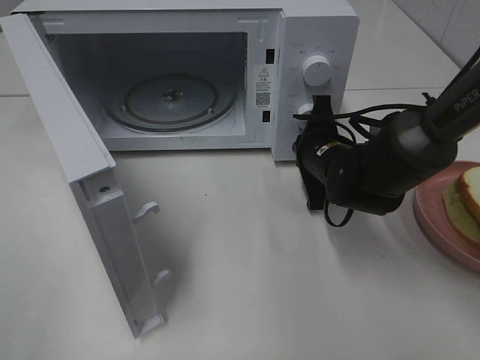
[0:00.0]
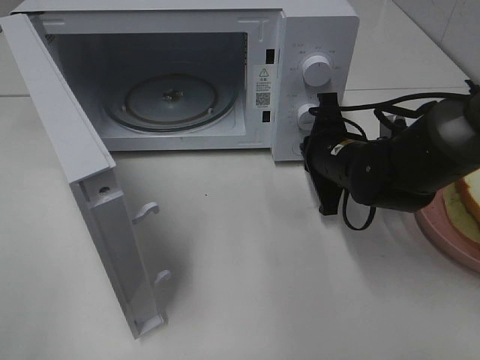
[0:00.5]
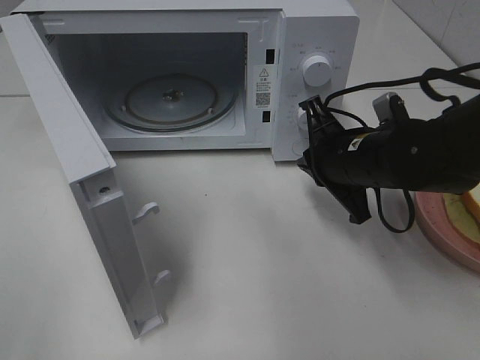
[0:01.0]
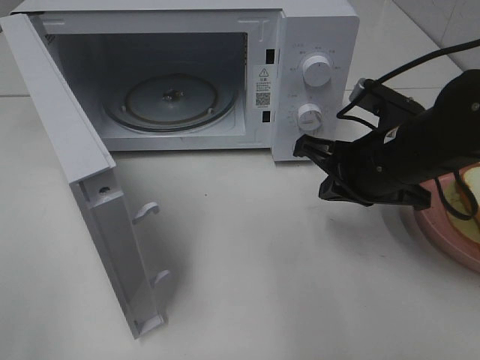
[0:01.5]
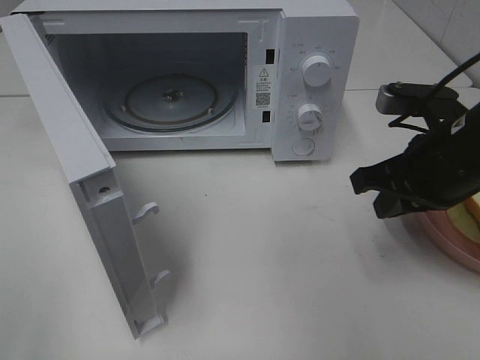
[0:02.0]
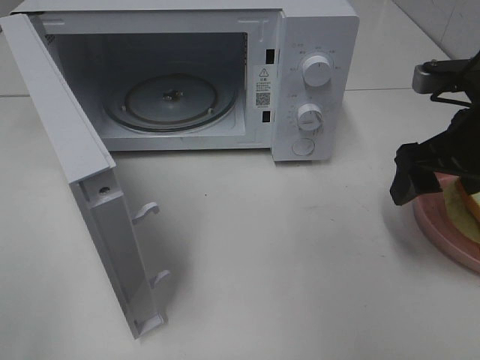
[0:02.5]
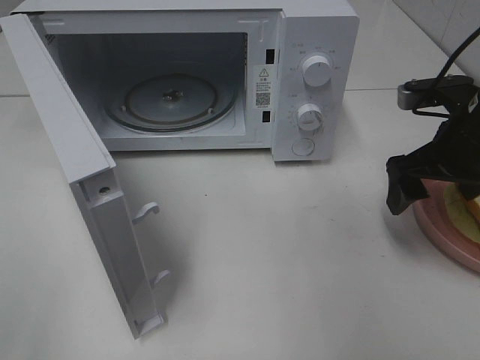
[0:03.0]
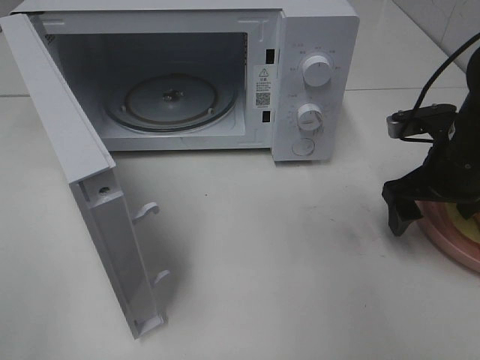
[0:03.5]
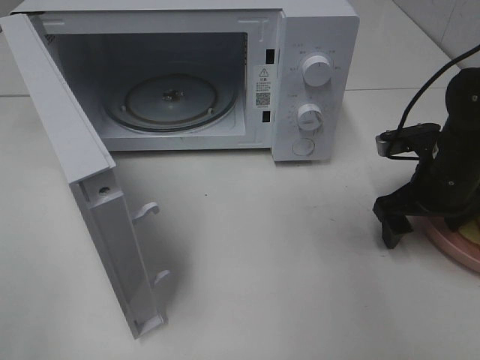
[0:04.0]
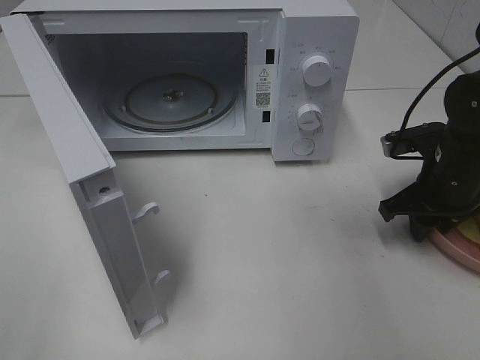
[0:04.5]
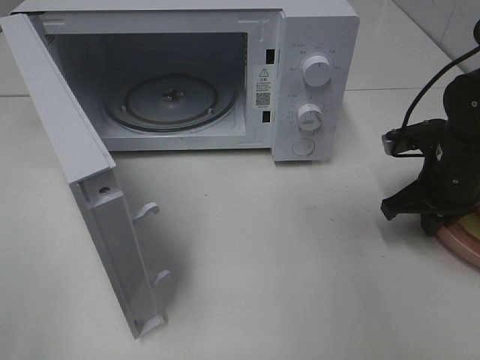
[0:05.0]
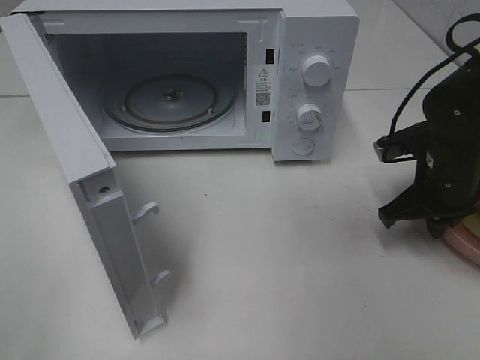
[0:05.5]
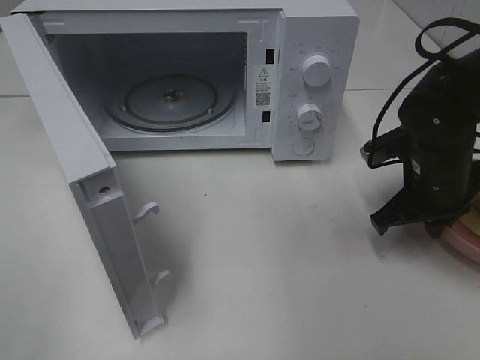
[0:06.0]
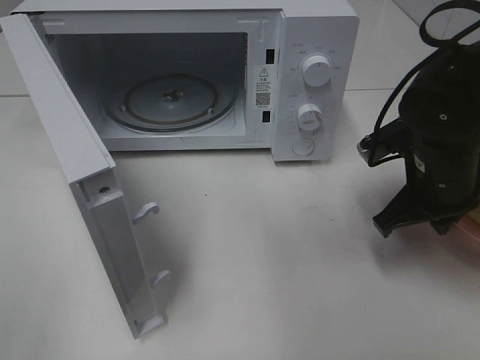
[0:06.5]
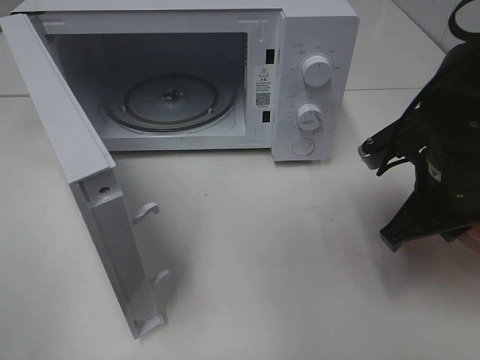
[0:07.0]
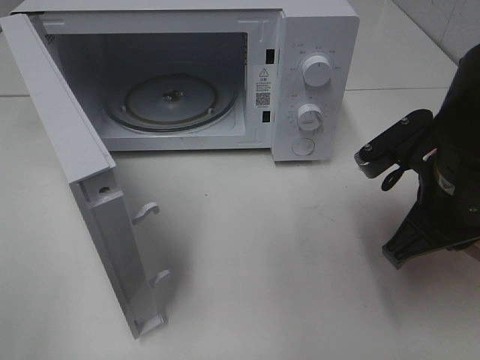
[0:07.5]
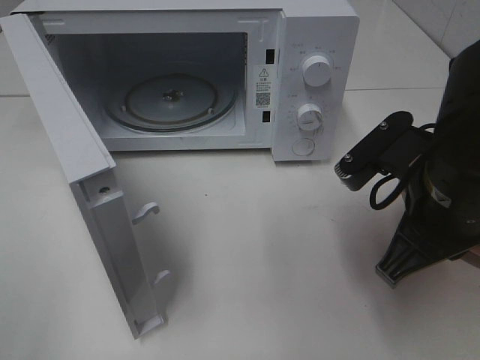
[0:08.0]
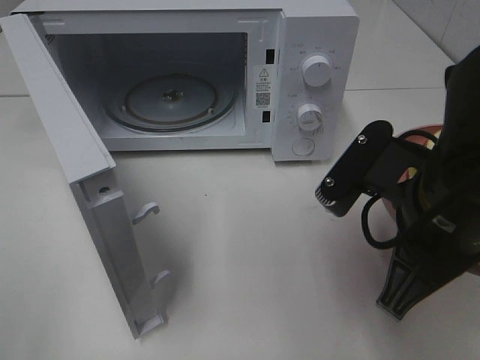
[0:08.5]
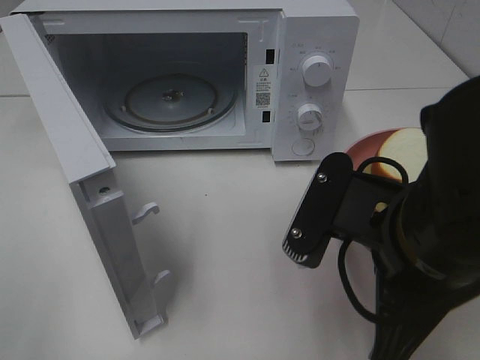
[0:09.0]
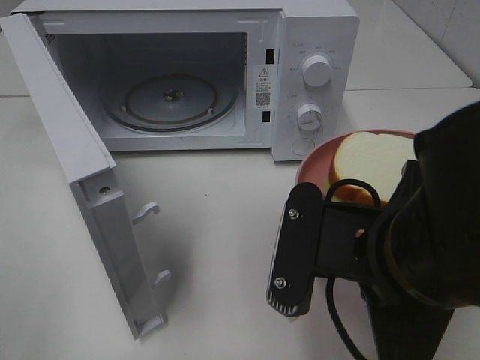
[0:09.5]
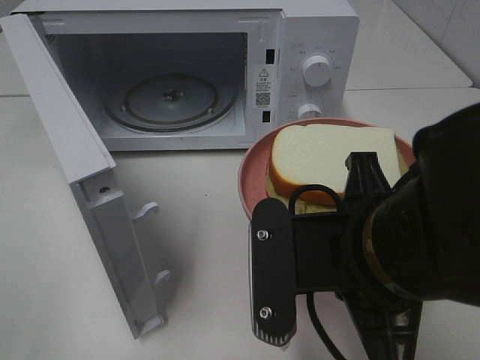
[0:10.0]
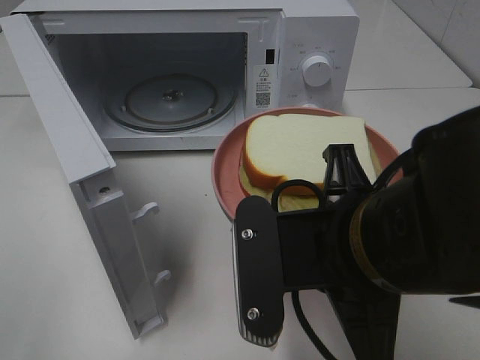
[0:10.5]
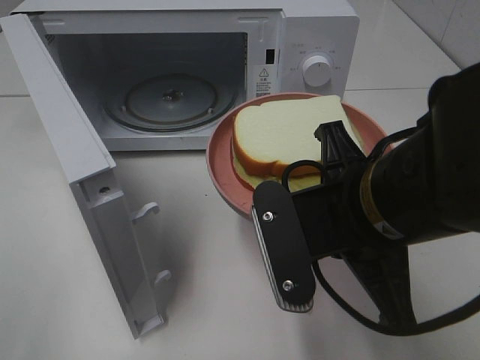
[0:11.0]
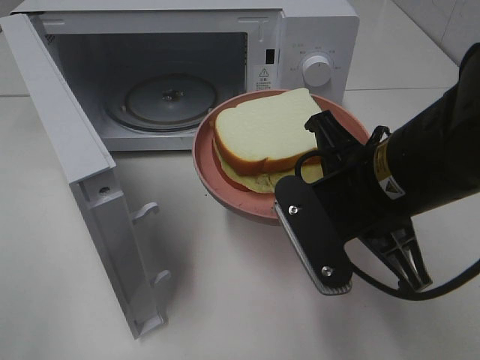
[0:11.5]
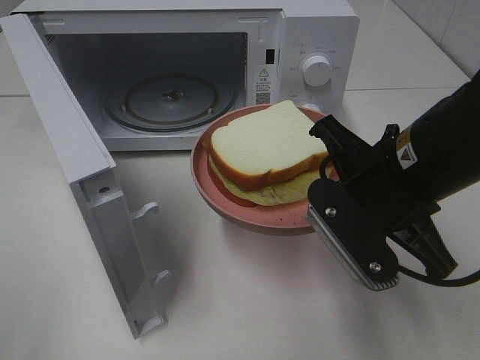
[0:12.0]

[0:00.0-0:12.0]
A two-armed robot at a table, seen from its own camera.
Task of the whole recording: Heat Sandwich.
Step, 0:01.0 to 0:05.0: Right hand: grab the plate with the sandwich.
0:00.0 to 0:02.0: The right gripper travels backward, upward and to the right by some 15 cm.
0:02.0 to 0:04.0: The right gripper travels downward and forward by about 10 cm, and opens up.
0:04.0 to 0:06.0: The right gripper closes its fingers.
0:06.0 to 0:08.0: The right gripper shifts about 15 cm backward, upward and to the left.
0:08.0 to 0:10.0: The right gripper moves to the left and backward, approximately 10 cm.
0:10.0 to 0:12.0: The right gripper is displaced forward by some 10 cm.

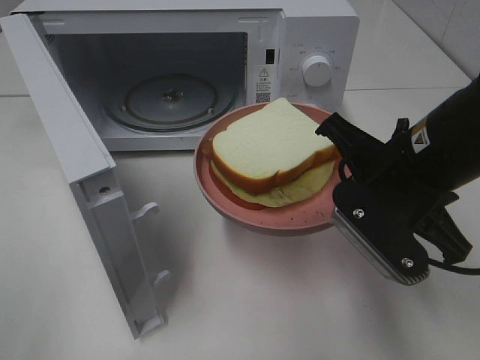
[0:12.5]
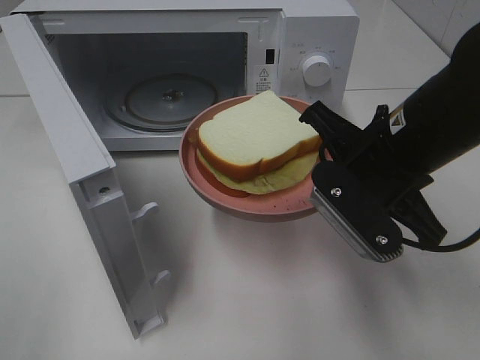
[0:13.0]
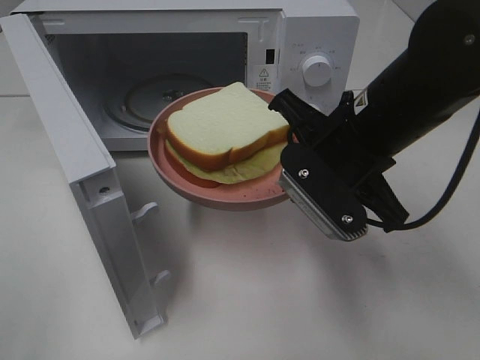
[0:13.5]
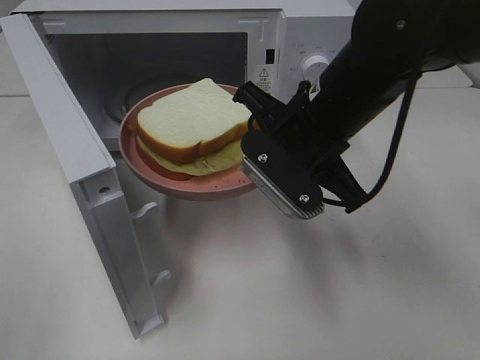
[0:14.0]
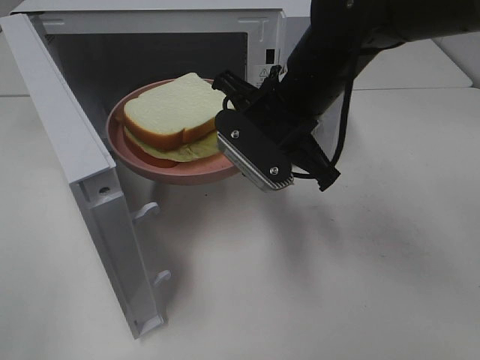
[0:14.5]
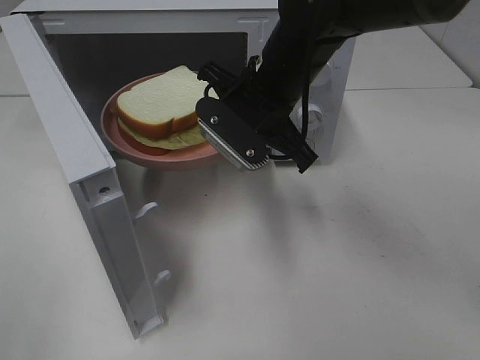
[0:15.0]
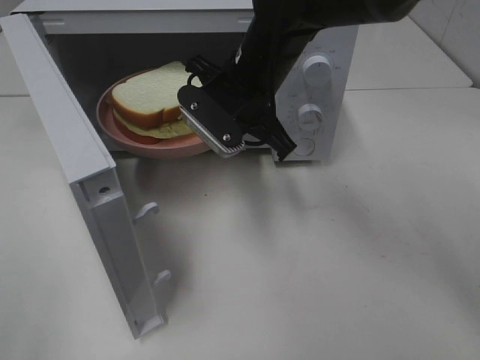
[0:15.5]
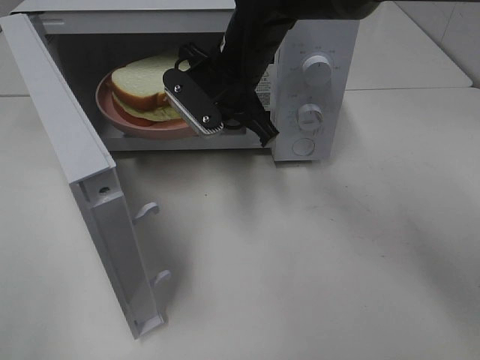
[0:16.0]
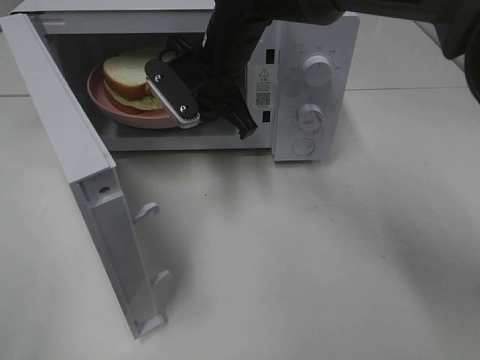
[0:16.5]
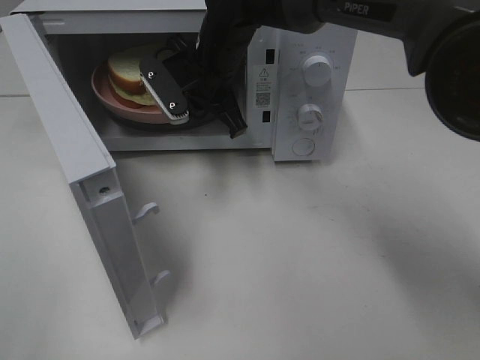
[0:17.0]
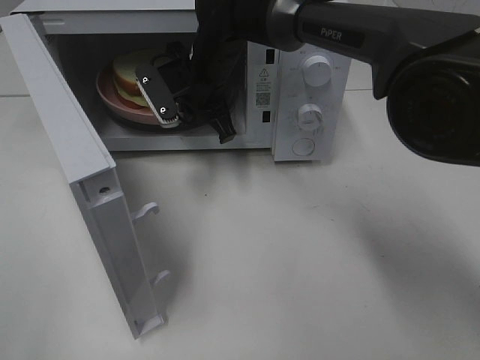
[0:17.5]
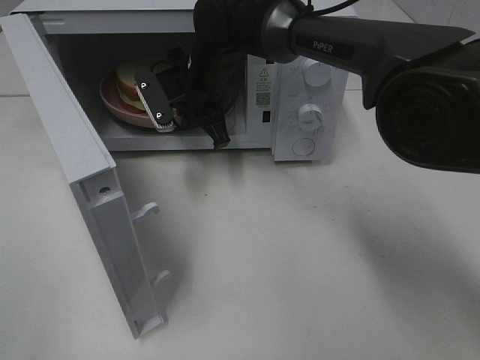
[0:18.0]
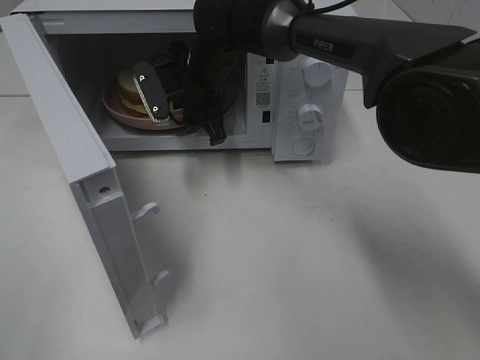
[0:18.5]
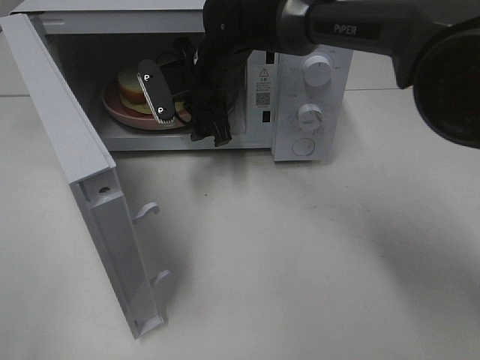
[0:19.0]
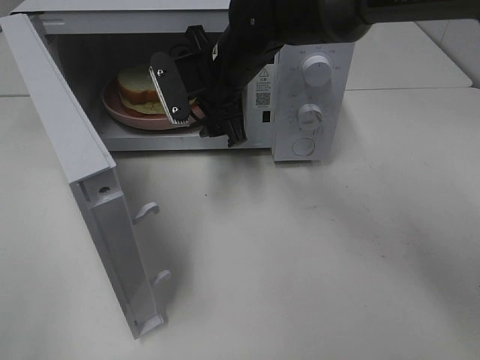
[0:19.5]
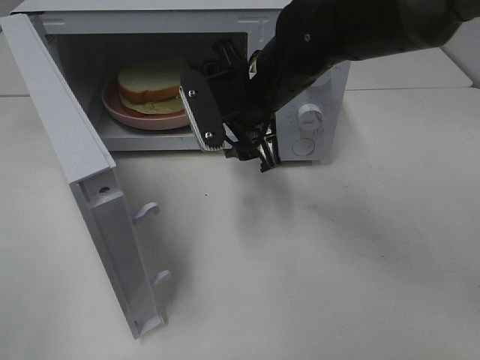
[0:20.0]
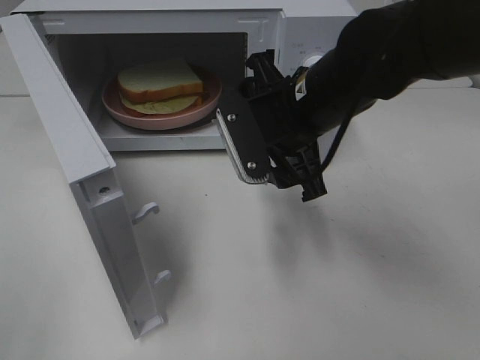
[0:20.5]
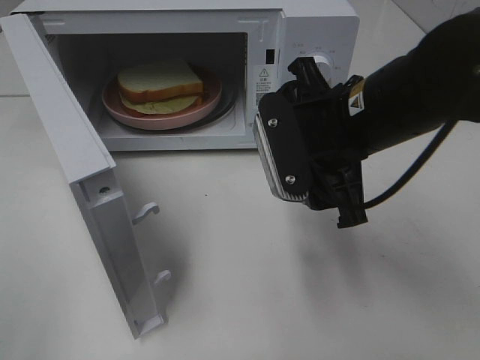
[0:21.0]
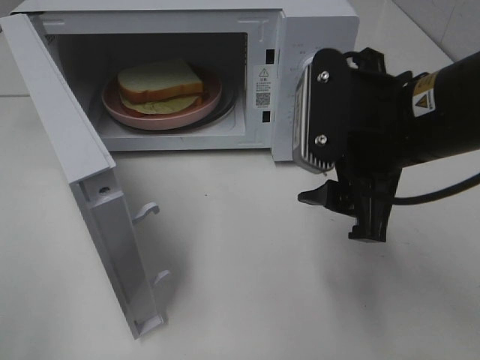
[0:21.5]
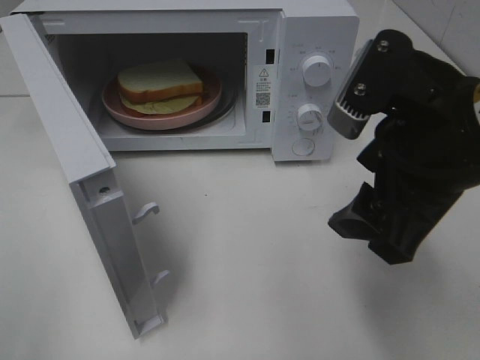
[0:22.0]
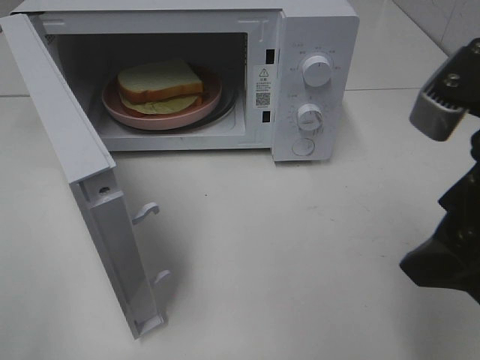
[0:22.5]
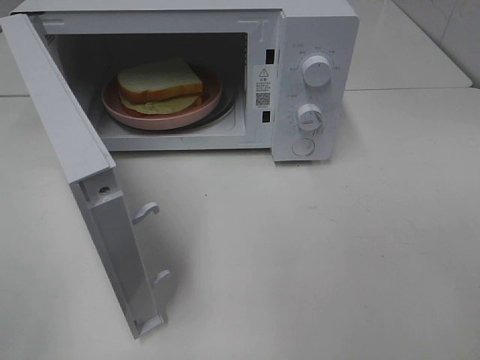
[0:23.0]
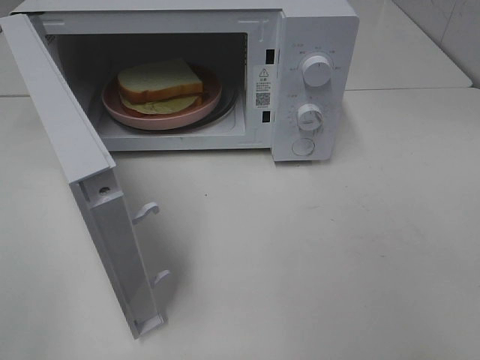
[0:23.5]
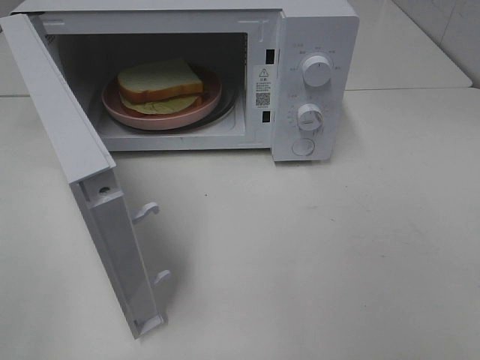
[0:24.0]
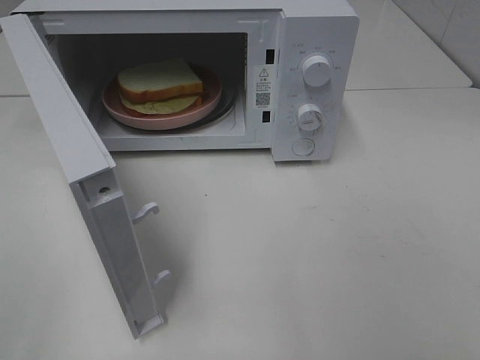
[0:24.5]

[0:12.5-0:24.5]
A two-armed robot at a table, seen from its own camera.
Task of the whole recording: Heat Sandwich.
Step, 0:12.5 to 0:19.5: Right hand: place the plate in the microwave.
0:12.5 to 0:14.5: The right gripper is displaced to the left and forward by about 15 cm.
0:14.5 to 0:16.5: The right gripper heads forward and to the left, covering approximately 15 cm.
0:16.5 to 0:18.5: The right gripper changes place by some 5 cm, and opens its fingers.
0:18.5 to 0:20.5: The right gripper heads backward and to the right, covering about 20 cm.
0:20.5 to 0:22.5: The right gripper shifts about 20 cm backward, to the right and upward.
0:22.5 to 0:24.5: The right gripper moves backward and to the right, roughly 15 cm.

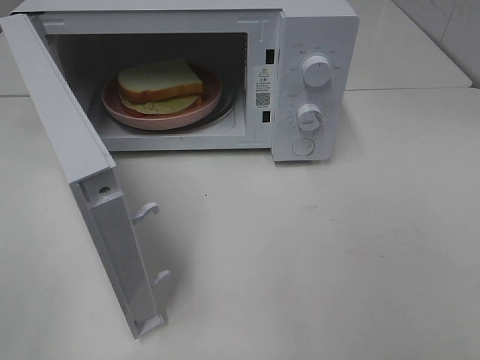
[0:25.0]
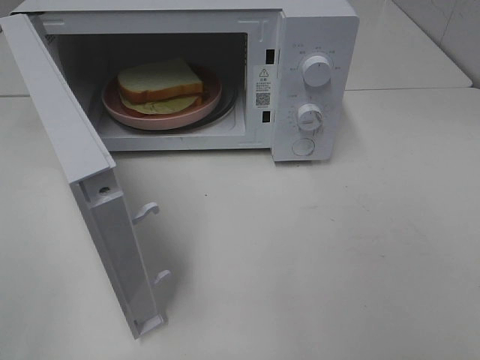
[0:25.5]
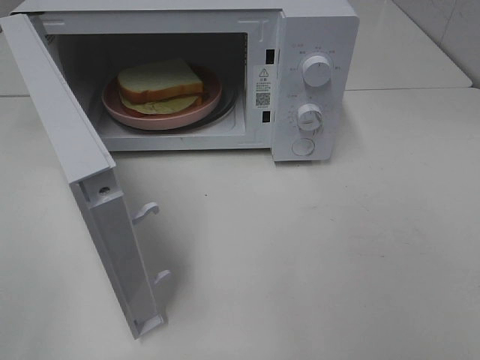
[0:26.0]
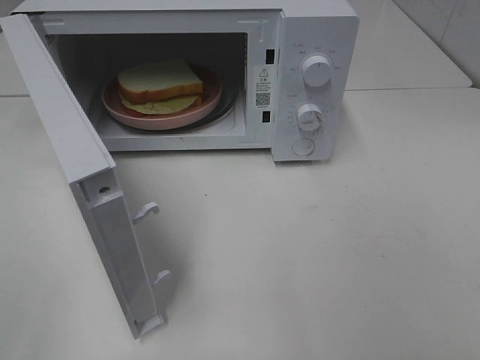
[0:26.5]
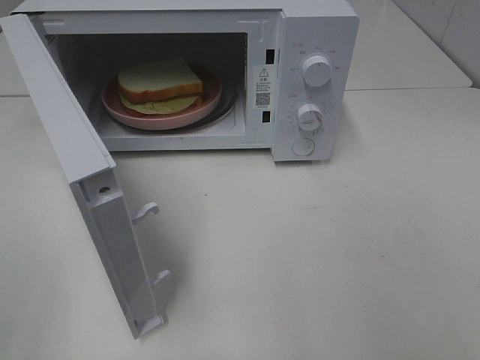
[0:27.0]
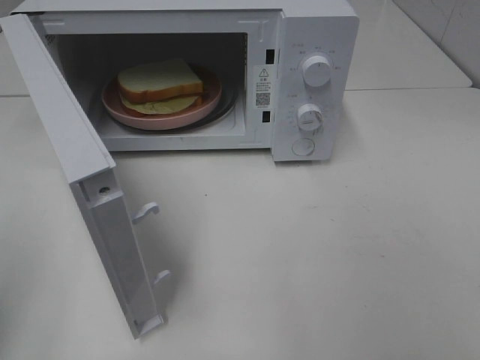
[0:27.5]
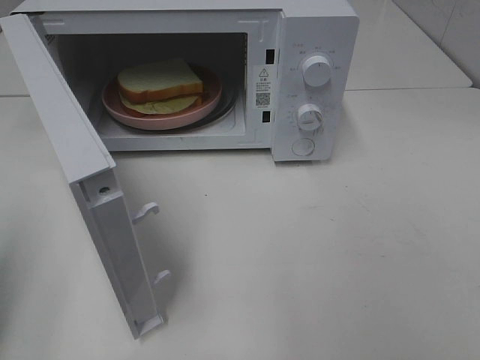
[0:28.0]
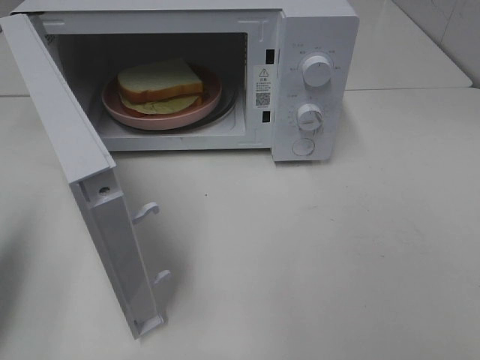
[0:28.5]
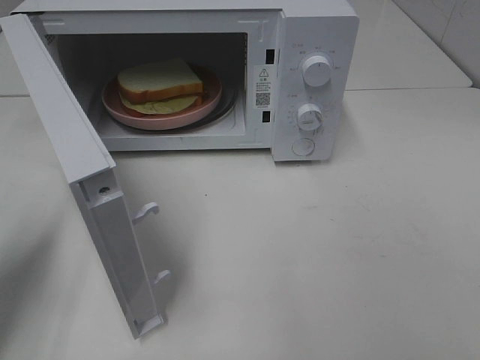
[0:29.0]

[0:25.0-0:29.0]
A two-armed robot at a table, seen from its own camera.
Task of the whole recording: Heat Sandwich.
0:27.0 to 0:29.0: The left gripper is displaced forward and downward by about 20 cm, and closes up.
